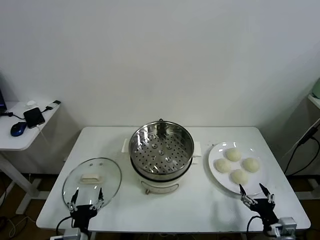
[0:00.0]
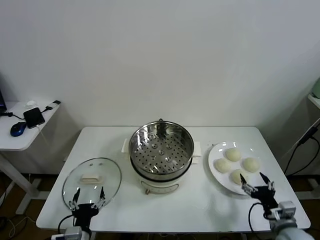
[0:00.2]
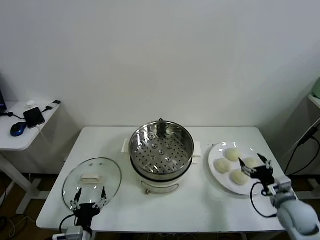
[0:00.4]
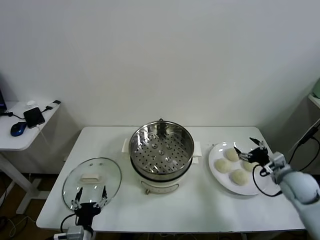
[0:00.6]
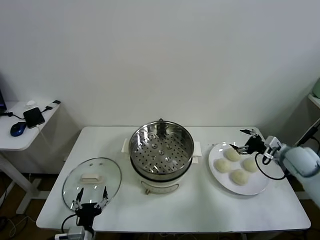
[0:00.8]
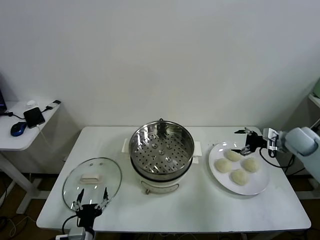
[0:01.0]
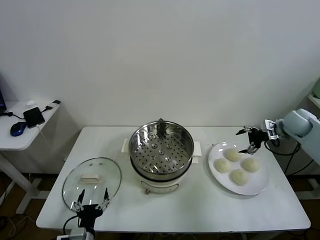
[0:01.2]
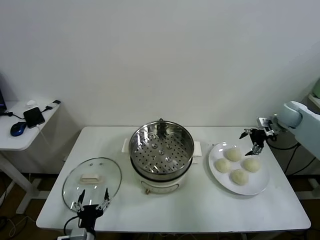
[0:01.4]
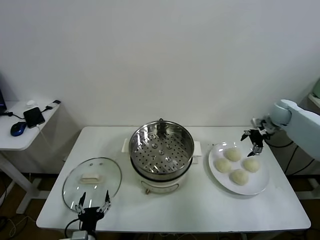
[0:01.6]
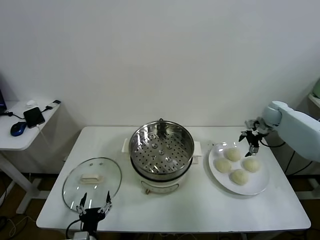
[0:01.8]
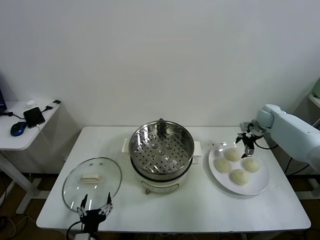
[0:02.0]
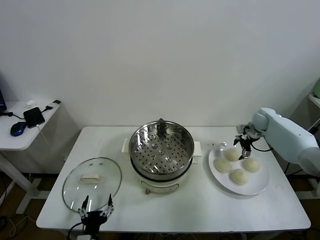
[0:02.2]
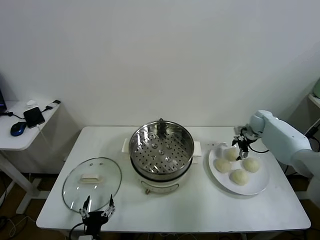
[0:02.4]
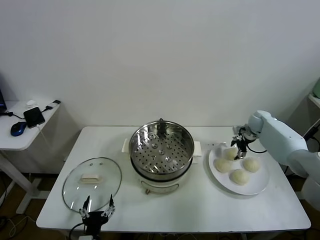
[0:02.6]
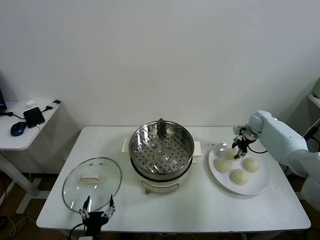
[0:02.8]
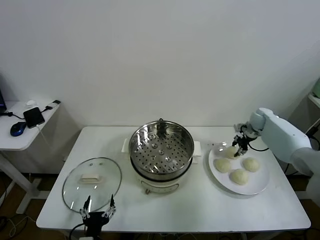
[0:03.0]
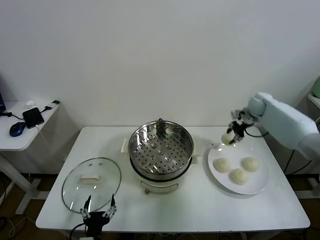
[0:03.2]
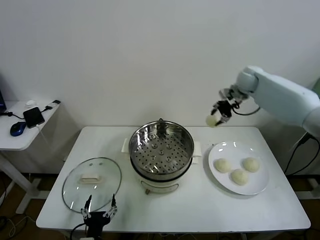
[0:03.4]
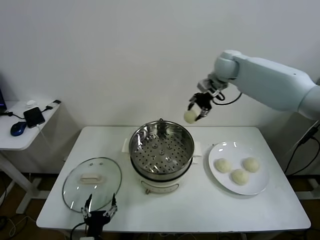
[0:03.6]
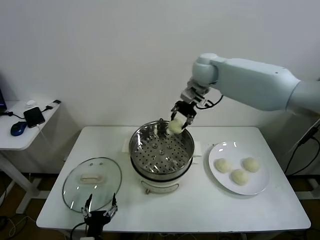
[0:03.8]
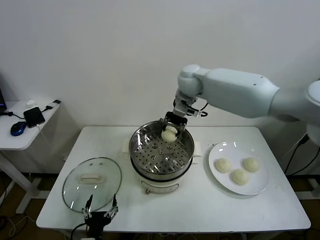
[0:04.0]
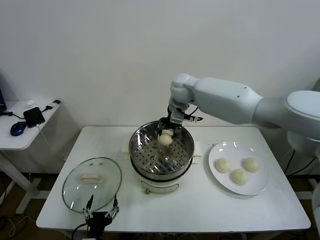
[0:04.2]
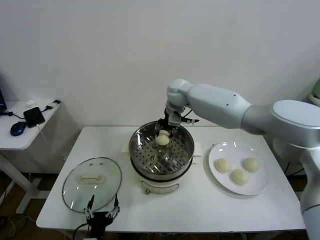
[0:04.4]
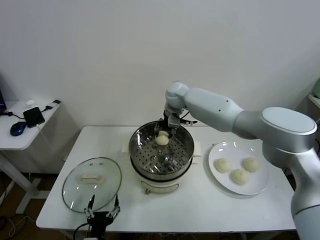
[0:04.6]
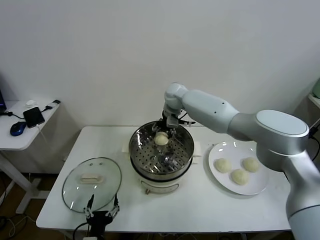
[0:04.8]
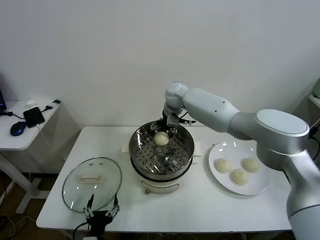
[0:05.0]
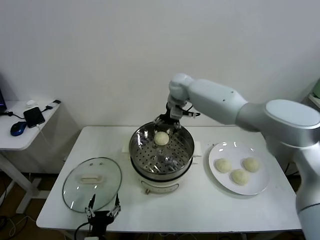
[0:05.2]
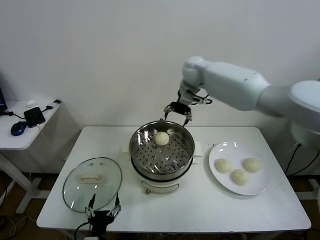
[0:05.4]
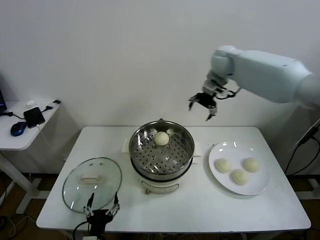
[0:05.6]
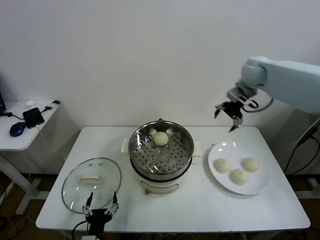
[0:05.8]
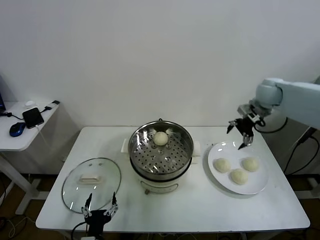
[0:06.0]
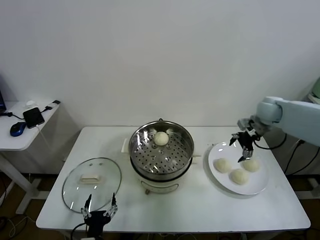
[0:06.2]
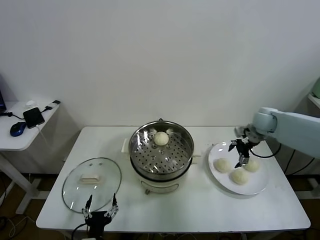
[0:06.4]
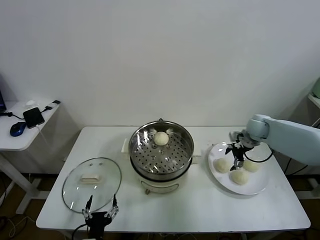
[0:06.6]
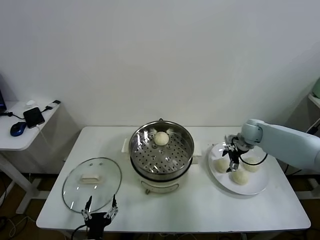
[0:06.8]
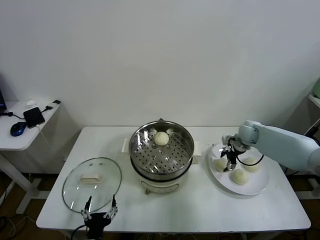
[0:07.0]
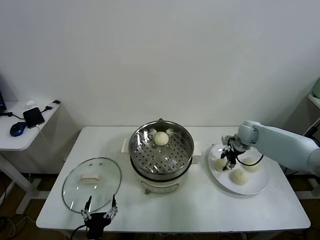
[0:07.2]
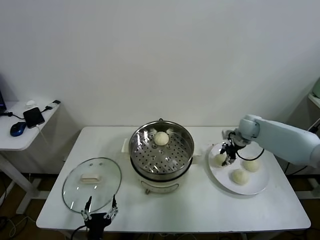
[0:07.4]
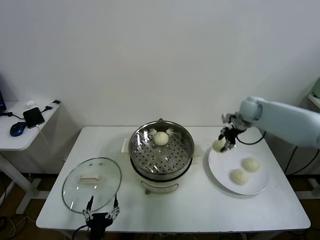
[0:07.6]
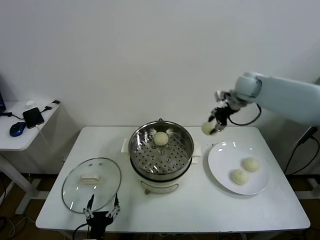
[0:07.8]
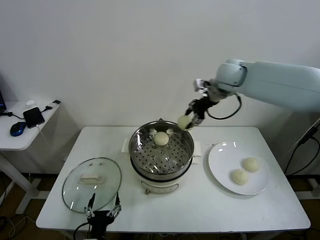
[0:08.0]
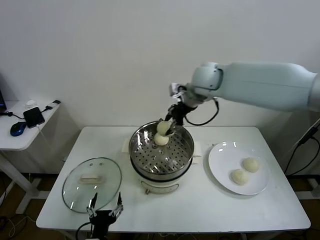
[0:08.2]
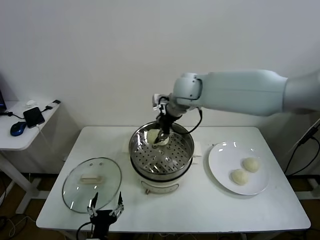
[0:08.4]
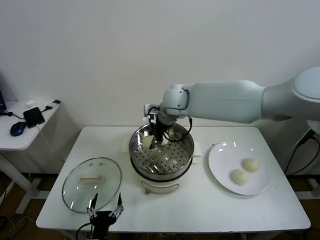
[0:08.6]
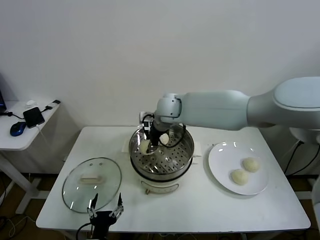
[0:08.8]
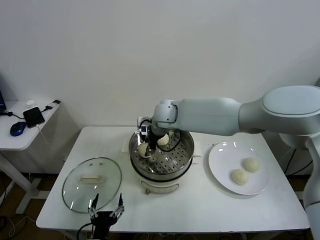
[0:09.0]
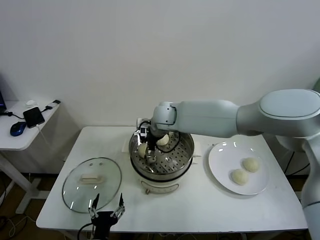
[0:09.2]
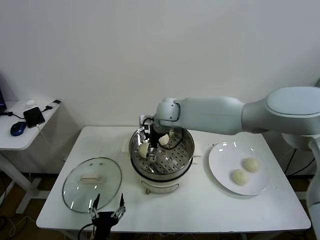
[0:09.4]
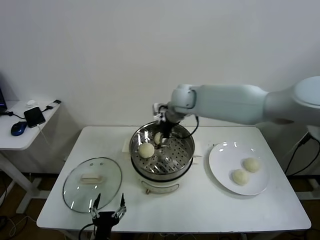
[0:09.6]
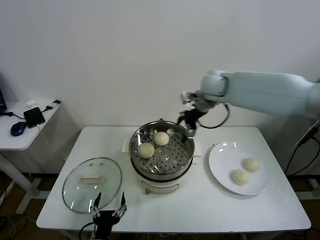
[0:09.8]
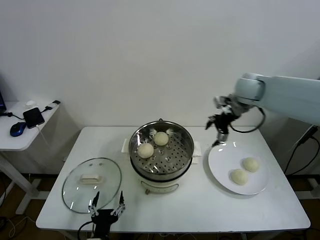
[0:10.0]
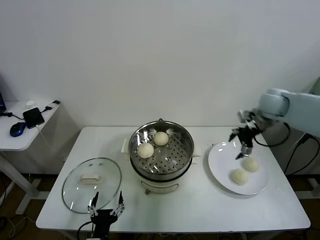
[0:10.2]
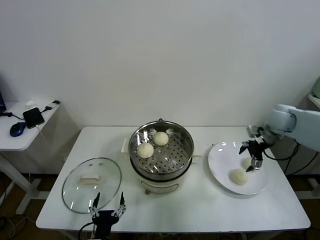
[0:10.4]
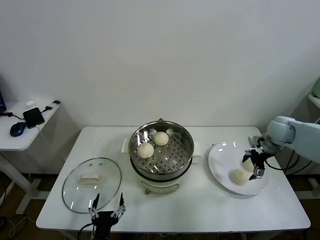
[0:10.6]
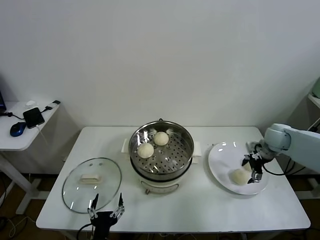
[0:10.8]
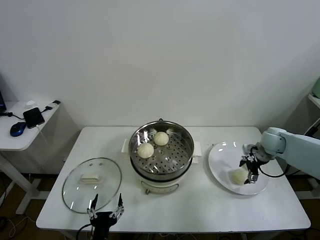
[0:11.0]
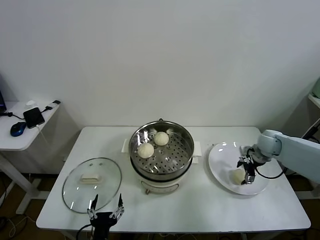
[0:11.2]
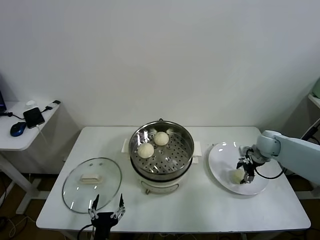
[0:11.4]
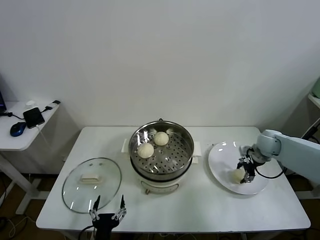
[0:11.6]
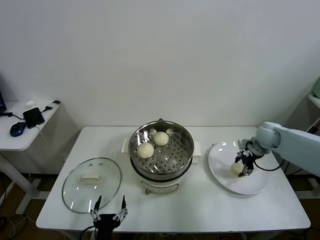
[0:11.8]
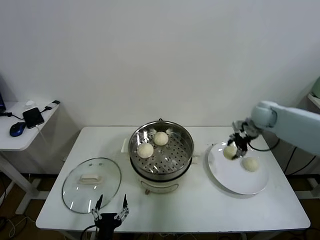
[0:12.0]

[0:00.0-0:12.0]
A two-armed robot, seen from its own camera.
Task of the whole recording: take steamed baozi put them in steamer.
Step, 0.0 to 2.6 s: Grasp the baozi in the plate with right gripper.
Step, 3.0 to 5.0 s: Place the baozi on the steamer with right gripper.
Step, 5.2 to 7.2 s: Grasp the baozi in the plate with right gripper.
Step, 7.4 to 9.2 s: Place the baozi on the steamer with right gripper.
Step, 9.4 to 11.4 s: Grasp the baozi in the plate with right gripper.
1.6 to 3.0 s: The right gripper travels downward and back again, roughly 10 cm each way, and closes.
3.0 to 4.4 s: The right gripper is displaced to the left by roughly 35 cm.
4.4 to 6.0 s: The right gripper is displaced to the right by approximately 30 cm, and opens up.
6.0 to 7.6 s: The right gripper goes downward and returns, some 15 cm each way, and closes.
7.6 to 9.0 s: The right gripper heads to the left, covering some 30 cm.
9.0 to 10.4 s: The right gripper heads to the right, covering approximately 40 cm, and opens.
10.4 to 12.0 s: The right gripper heads to the left, covering roughly 5 cm, moves some 10 cm downward and comes back, and closes up.

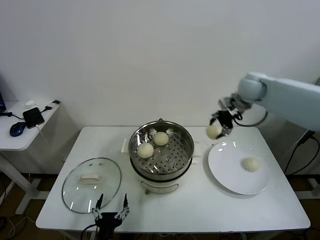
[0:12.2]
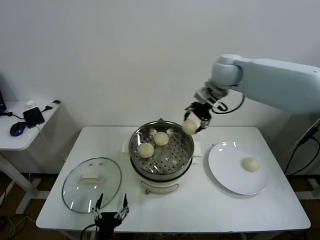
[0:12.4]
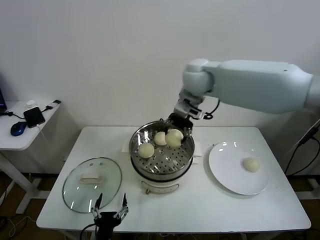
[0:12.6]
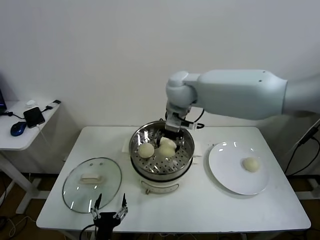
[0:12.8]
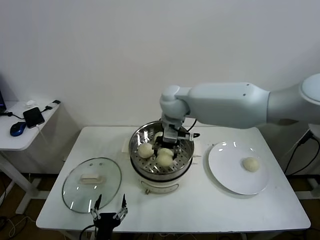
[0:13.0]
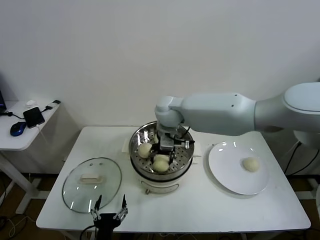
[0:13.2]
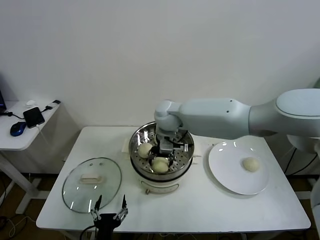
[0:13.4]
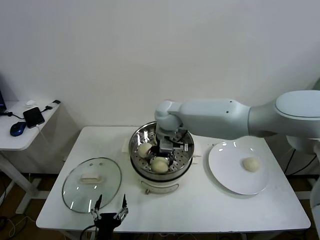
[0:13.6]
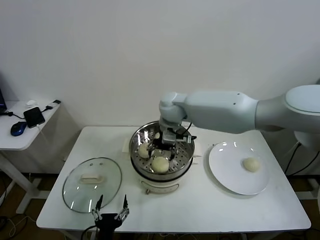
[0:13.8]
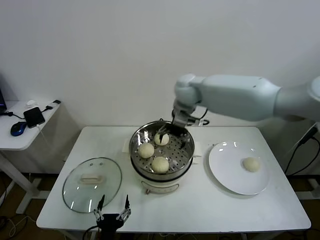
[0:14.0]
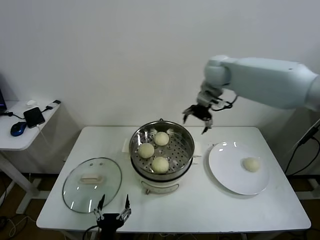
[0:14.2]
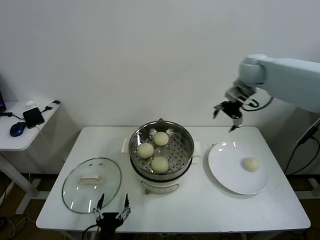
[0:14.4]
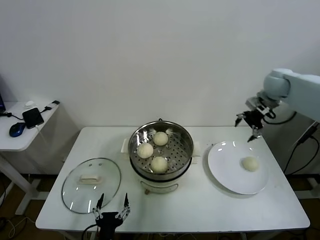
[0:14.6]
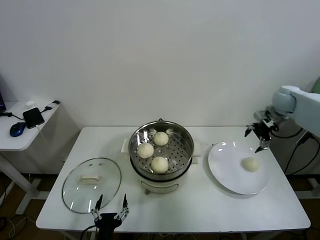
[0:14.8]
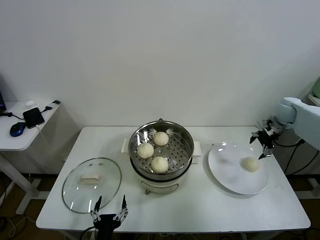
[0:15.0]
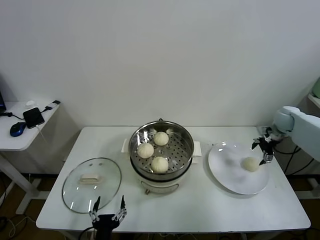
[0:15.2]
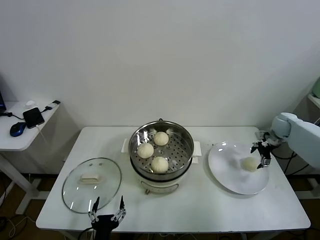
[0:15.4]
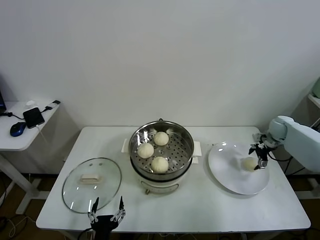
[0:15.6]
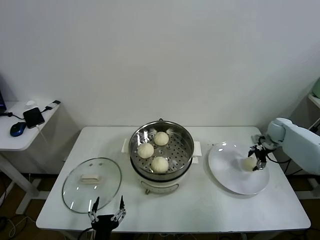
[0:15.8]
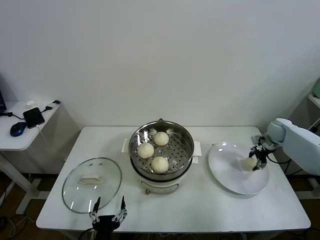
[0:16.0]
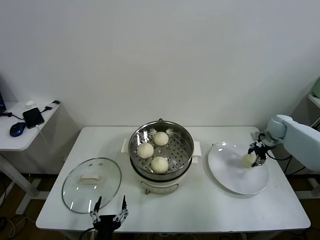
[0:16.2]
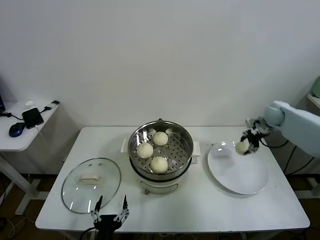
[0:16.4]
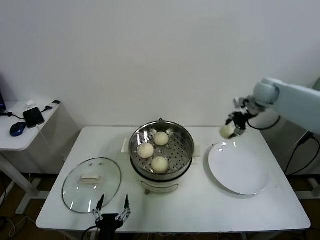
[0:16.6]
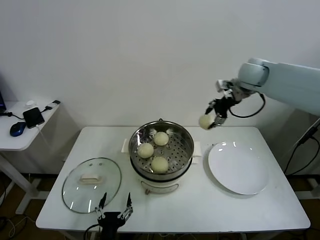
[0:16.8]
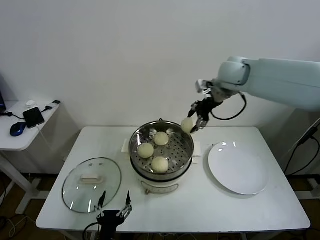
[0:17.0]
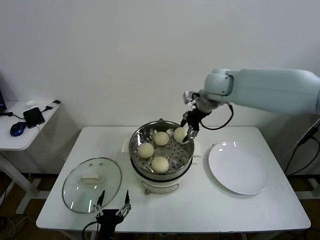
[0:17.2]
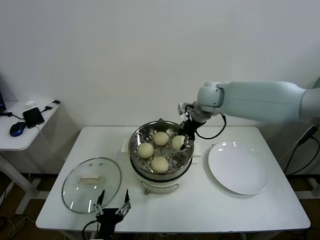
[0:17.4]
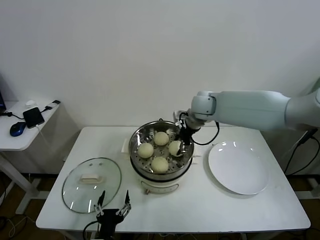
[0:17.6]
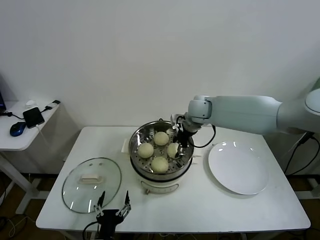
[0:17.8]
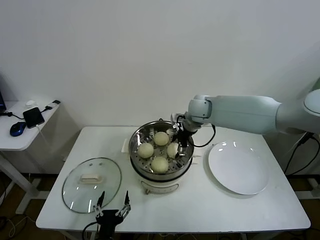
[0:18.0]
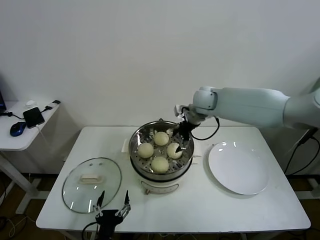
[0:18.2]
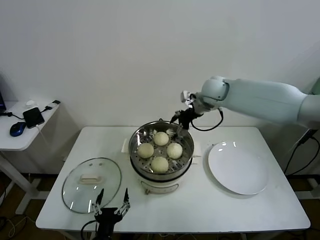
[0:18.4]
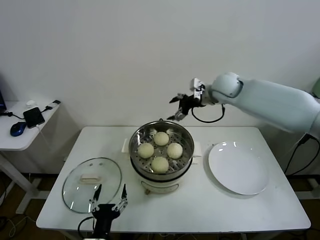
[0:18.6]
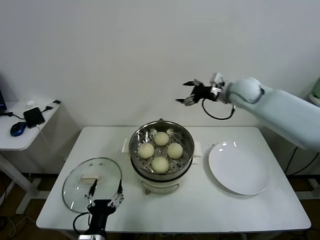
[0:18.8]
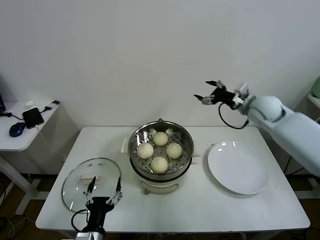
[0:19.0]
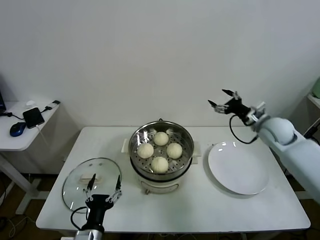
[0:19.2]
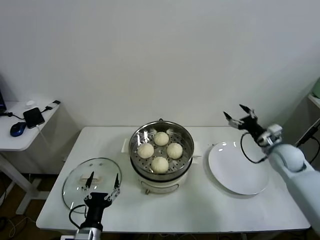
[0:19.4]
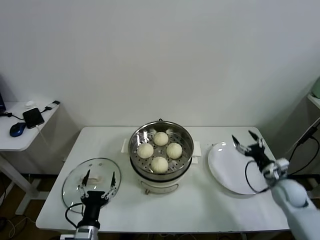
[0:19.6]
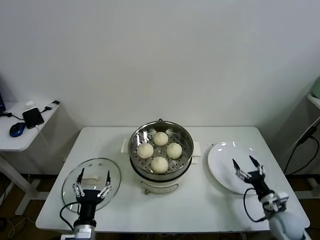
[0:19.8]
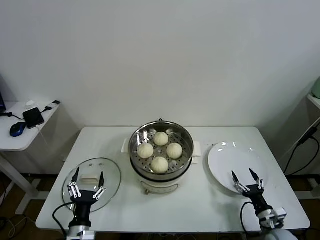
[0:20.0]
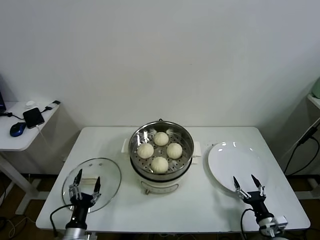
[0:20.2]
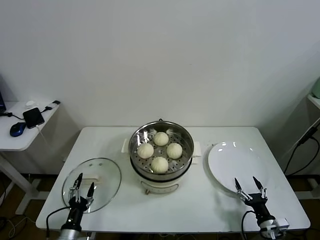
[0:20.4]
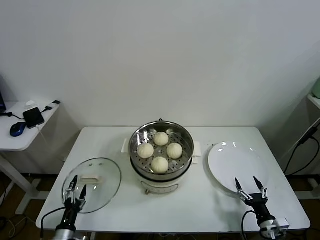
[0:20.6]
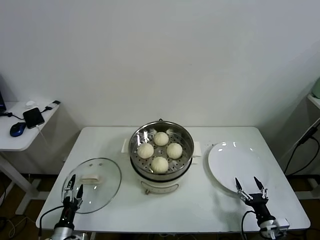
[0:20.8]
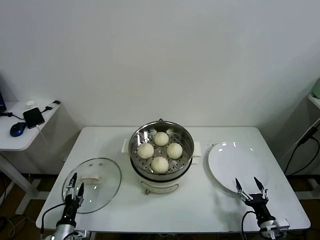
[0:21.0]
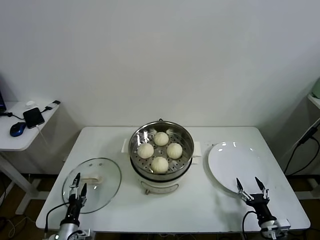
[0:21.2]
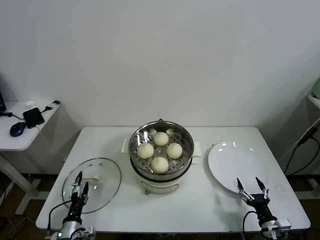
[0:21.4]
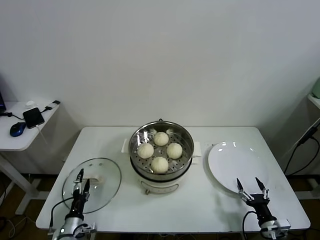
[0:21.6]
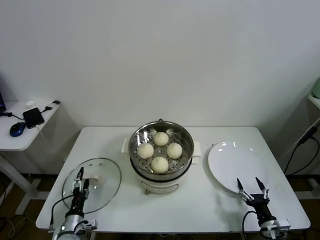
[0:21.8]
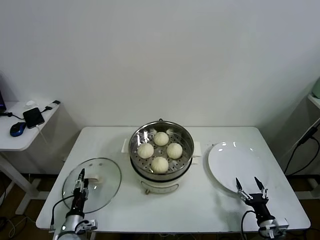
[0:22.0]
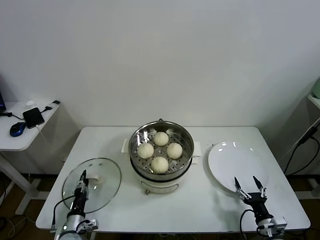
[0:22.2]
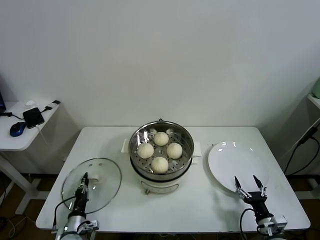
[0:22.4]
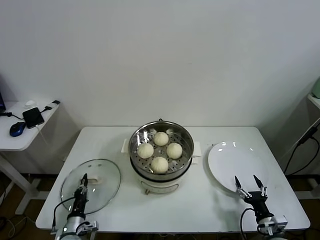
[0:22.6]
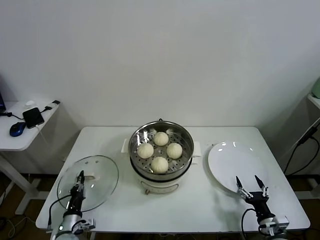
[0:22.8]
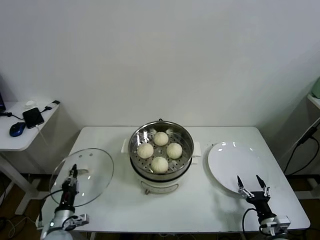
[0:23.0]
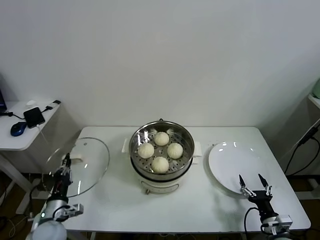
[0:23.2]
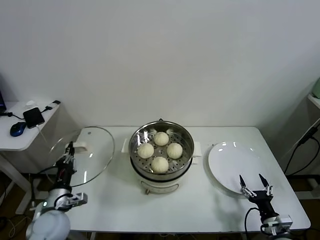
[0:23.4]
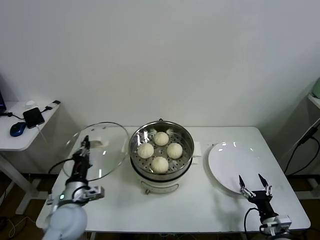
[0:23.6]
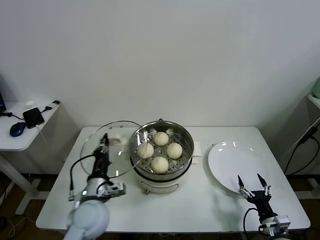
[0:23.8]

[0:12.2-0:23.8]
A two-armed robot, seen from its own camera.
Task of the whole recording: take steamed baozi put them in steamer.
Step, 12.2 to 13.6 s: Place the baozi on the steamer with right gripper.
Step, 13.8 to 16.0 s: Grasp the baozi in the plate with right gripper.
Step, 16.2 to 18.0 s: Place the baozi on the steamer with right gripper.
Step, 18.2 to 22.4 s: Grasp the pot lid with left gripper.
12.2 to 13.6 s: The right gripper shifts approximately 25 cm to the left, and opens up.
13.6 to 15.0 s: The right gripper is displaced to the right by roughly 50 cm.
15.0 to 16.6 s: The right gripper travels to the left and upward by some 15 cm, and closes its fingers.
16.6 to 18.0 s: The right gripper travels to the left by some 25 cm, and opens up.
18.0 to 19.4 s: The right gripper is displaced to the right, backward and downward by some 35 cm. Meanwhile the left gripper ends up about 5 cm from where it was.
19.4 to 21.0 s: The right gripper shifts roughly 30 cm backward and downward. The left gripper moves to the left and downward, some 20 cm.
21.0 to 22.4 s: The left gripper shifts by some 5 cm, and closes its fingers.
22.4 to 23.8 s: The left gripper moves upward and to the right, some 25 cm.
